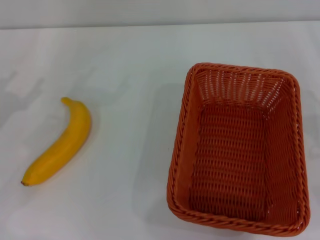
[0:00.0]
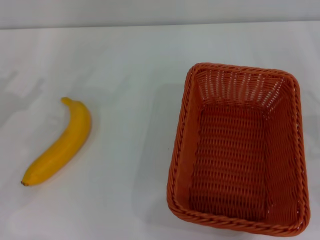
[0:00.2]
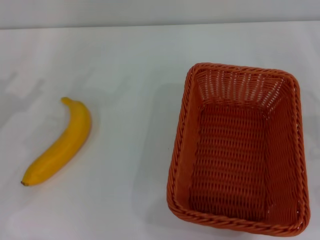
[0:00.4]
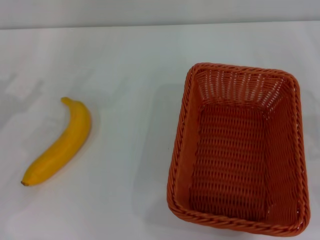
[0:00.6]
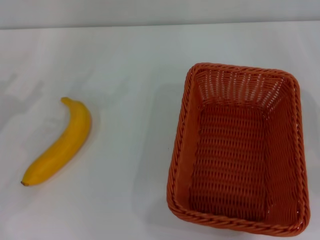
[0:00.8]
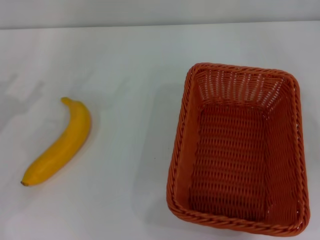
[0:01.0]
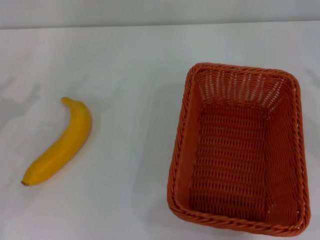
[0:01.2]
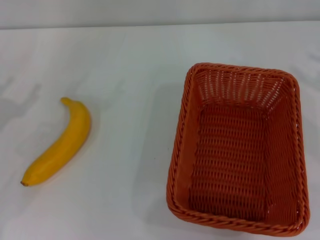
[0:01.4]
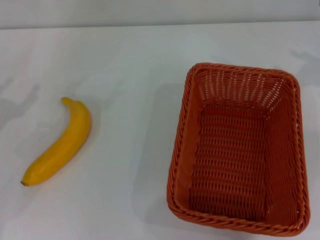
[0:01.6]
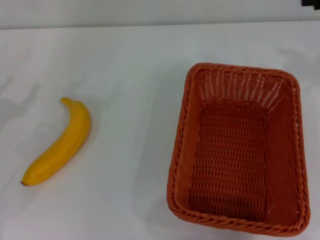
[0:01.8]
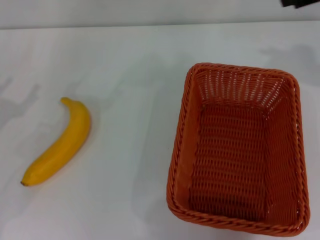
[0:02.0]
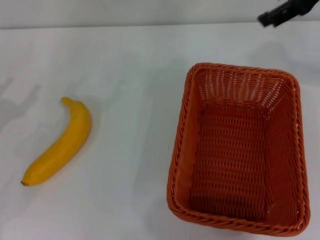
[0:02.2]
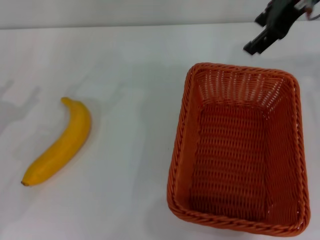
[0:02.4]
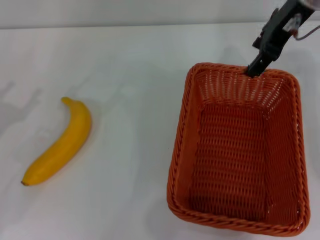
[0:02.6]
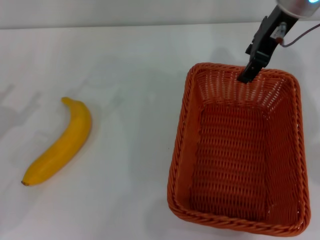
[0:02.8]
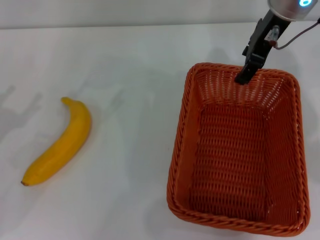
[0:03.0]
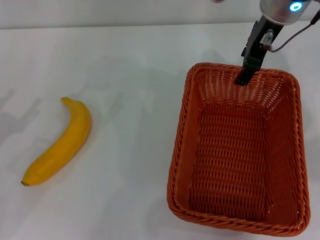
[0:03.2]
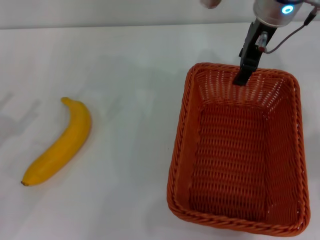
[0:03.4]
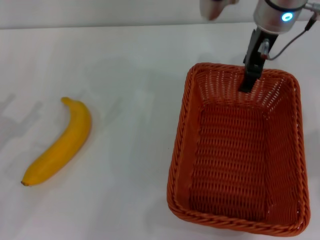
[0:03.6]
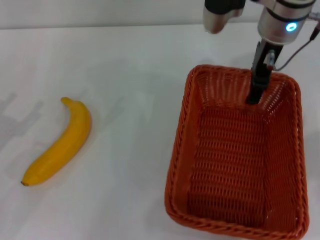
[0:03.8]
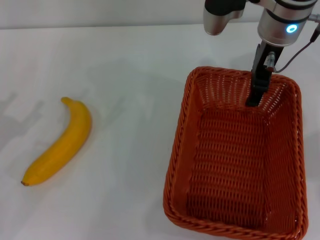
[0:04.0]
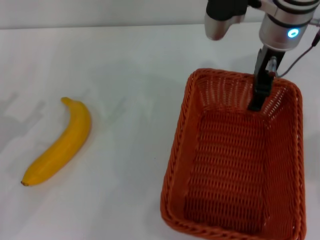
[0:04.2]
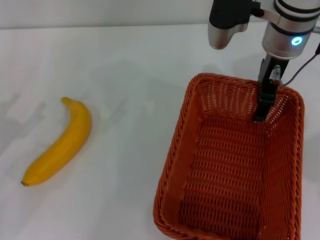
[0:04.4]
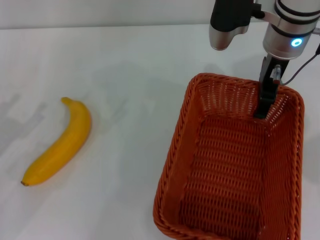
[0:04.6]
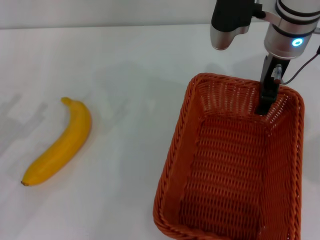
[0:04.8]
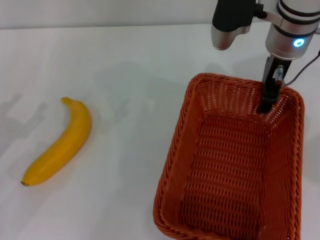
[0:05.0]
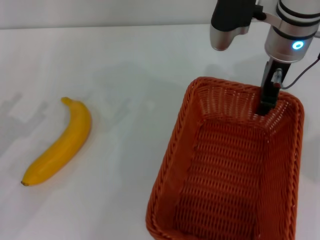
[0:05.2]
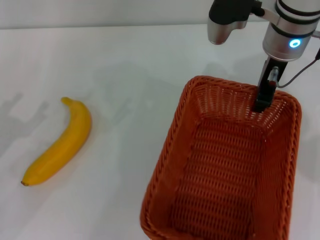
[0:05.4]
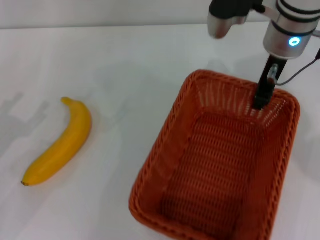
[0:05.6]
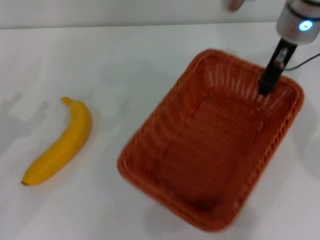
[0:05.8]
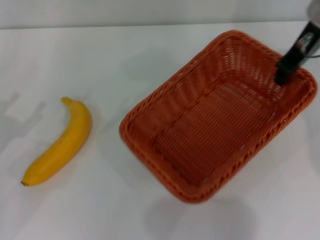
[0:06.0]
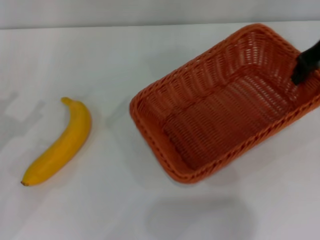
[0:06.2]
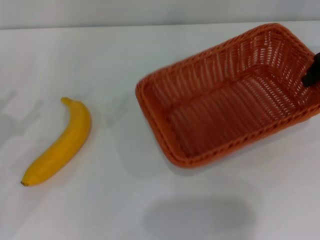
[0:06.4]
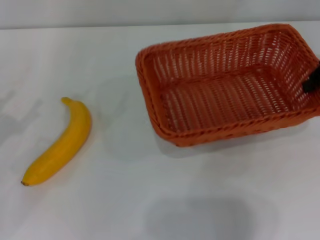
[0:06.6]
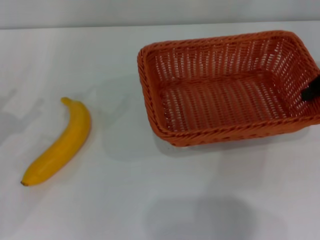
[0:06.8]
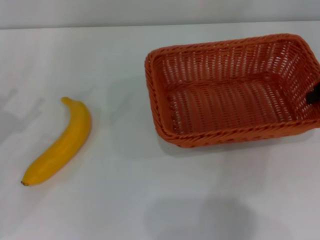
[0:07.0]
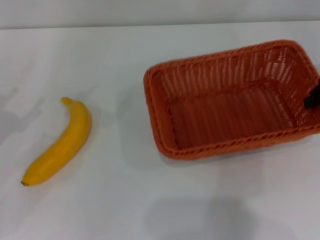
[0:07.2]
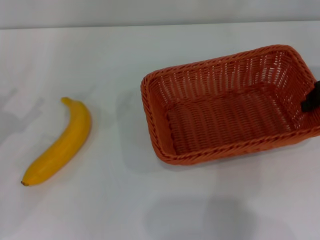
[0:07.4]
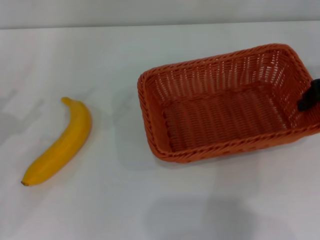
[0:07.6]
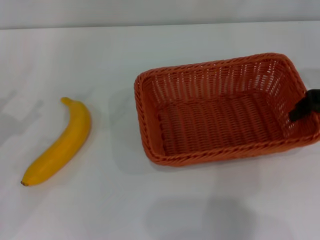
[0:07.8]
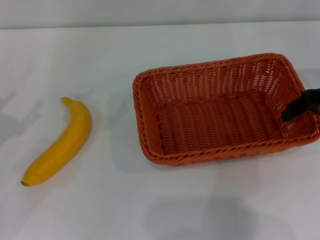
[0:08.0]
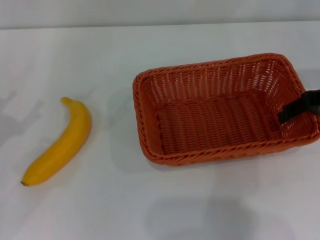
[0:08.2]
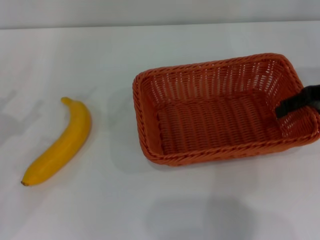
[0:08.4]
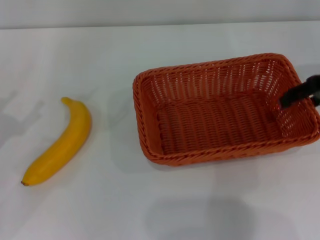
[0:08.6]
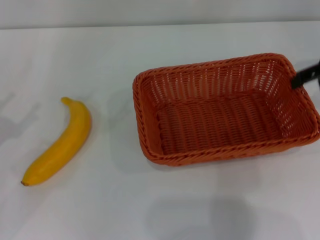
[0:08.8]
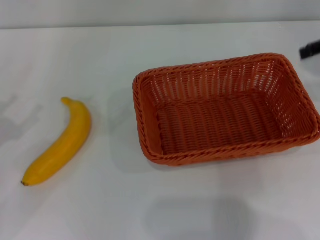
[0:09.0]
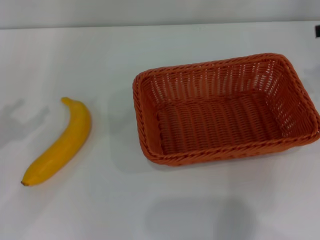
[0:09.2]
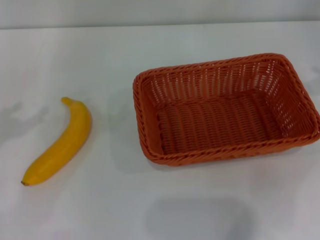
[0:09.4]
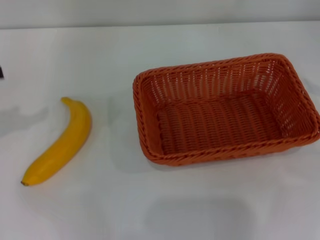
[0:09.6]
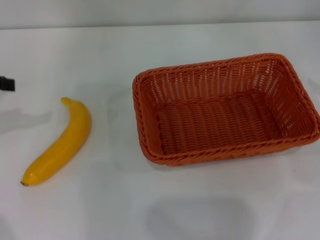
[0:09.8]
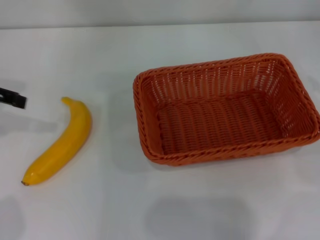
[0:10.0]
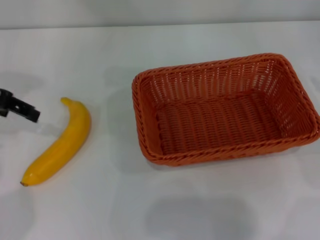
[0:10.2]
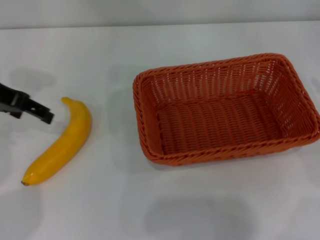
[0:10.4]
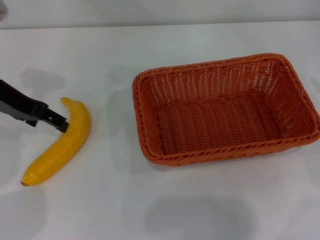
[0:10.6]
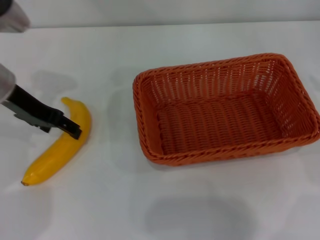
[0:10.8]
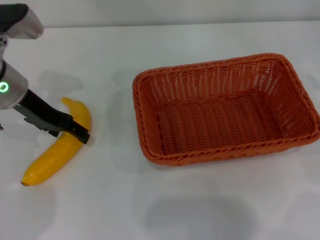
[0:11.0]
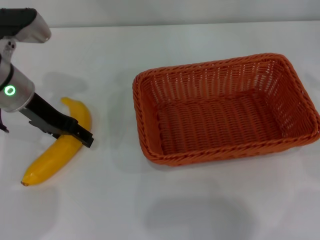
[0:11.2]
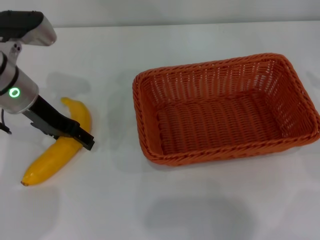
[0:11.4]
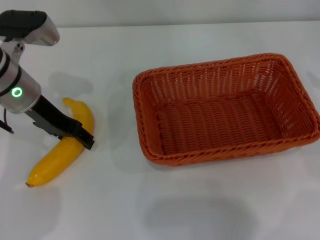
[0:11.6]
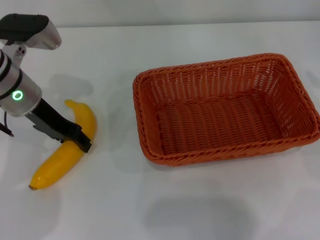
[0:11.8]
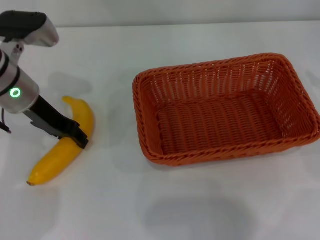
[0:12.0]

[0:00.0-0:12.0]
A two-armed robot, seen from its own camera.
Step, 0:00.0 to 0:05.6: Pick up the light basket with the right gripper.
Step, 0:05.8 to 0:08.8: Place the light basket in the center of view with the right gripper.
0:01.6 to 0:03.0: The right gripper moves to the left, approximately 20 cm.
0:03.0 to 0:04.4: The grippers make only small movements.
0:04.4 to 0:06.0: The right gripper moves to the right, roughly 5 cm, and closes its fingers.
0:06.0 to 0:07.6: The right gripper shifts some 10 cm to the right and backward.
0:07.6 to 0:09.0: The right gripper heads upward, covering about 5 cm, and opens its fingers.
0:09.0 to 0:10.4: The left gripper is displaced forward, to the right and upward by roughly 20 cm; the right gripper moves to the right and backward, some 10 cm.
0:10.4 to 0:12.0: The left gripper moves to the right and downward, approximately 10 cm, and closes its fingers.

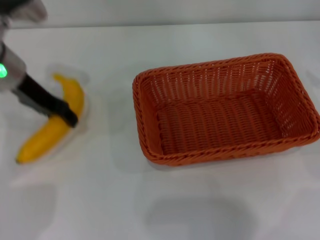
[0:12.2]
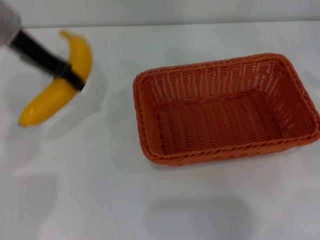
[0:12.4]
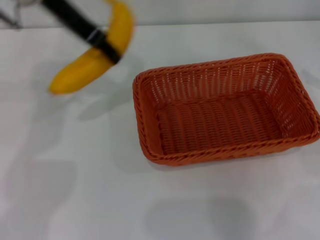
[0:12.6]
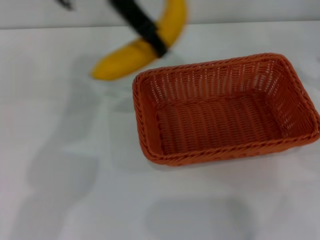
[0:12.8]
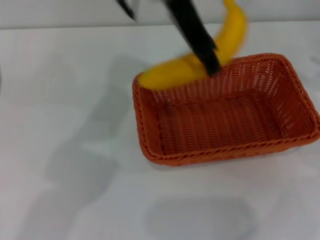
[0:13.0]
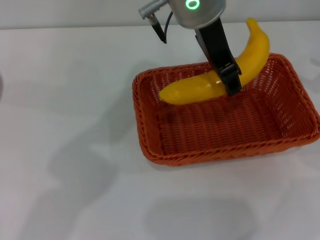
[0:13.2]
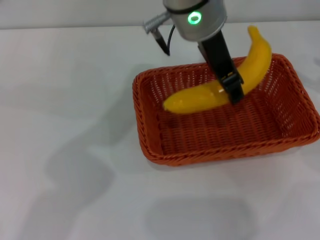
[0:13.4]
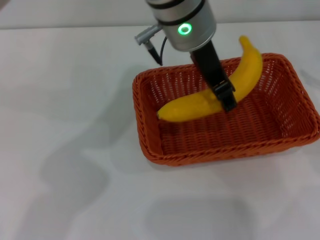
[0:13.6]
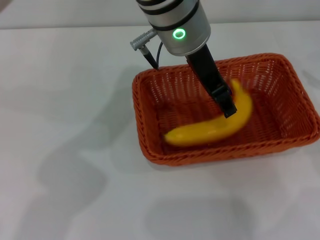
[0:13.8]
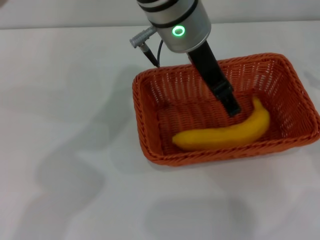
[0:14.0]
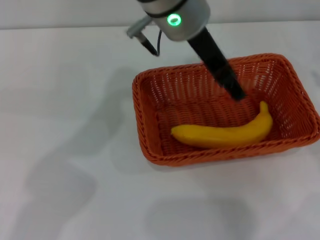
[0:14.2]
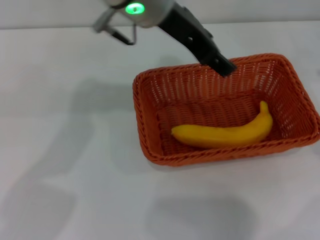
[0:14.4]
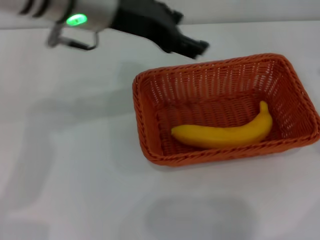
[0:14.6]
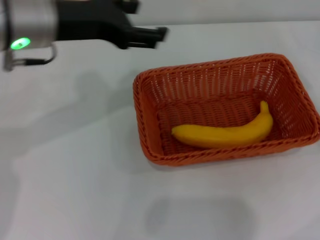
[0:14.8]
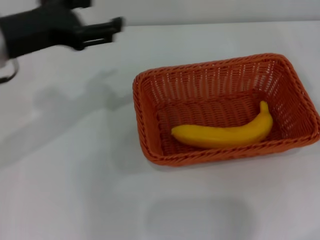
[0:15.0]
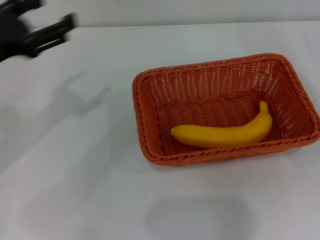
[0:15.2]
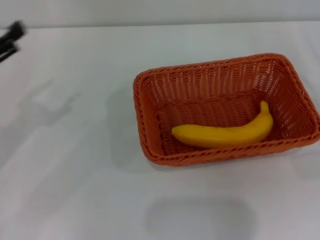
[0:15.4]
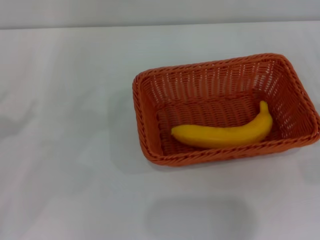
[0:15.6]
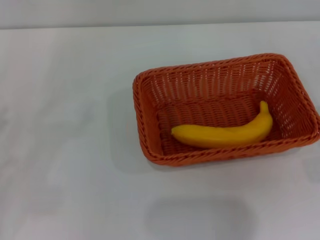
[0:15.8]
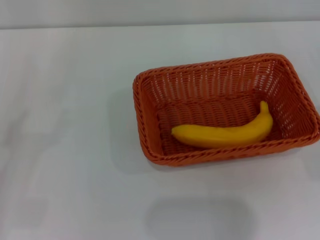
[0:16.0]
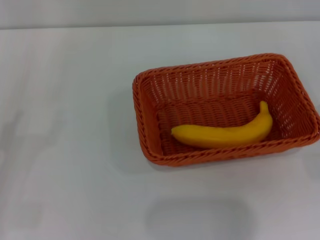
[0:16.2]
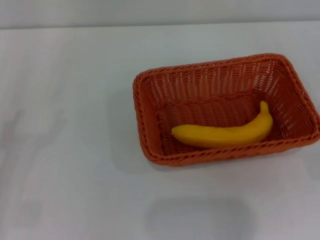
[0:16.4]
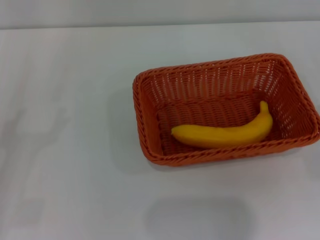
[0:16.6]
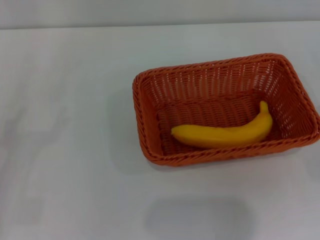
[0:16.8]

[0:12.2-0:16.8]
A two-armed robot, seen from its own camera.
Step, 0:12.4 to 0:13.8: Place the banana into the light basket with the left gripper.
0:12.2 to 0:13.8: The left gripper shifts about 25 cm to the right.
0:13.8 to 0:15.2: The left gripper travels to the left by some 30 cm, and opens. Meanwhile the right gripper goes some 10 cm downward.
0:15.2 to 0:16.8: The left gripper is displaced downward, to the left and backward by approximately 20 cm.

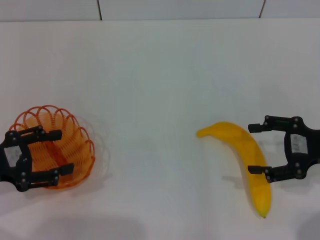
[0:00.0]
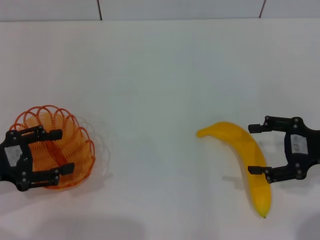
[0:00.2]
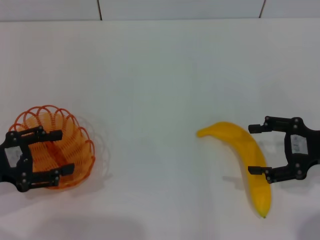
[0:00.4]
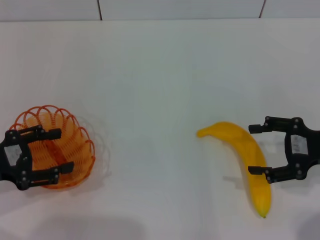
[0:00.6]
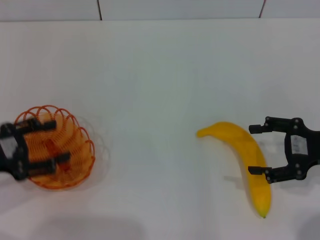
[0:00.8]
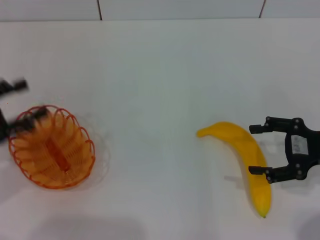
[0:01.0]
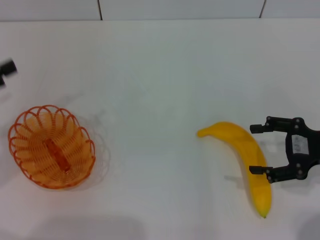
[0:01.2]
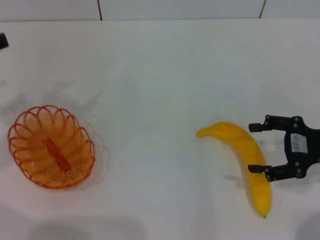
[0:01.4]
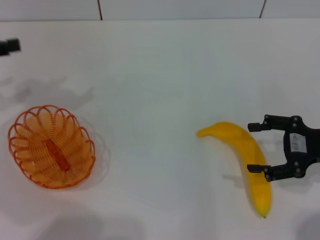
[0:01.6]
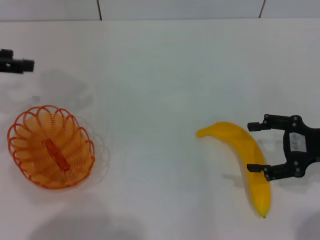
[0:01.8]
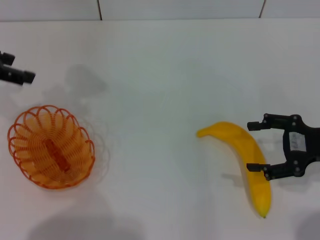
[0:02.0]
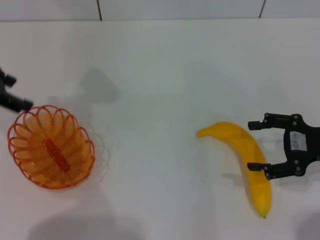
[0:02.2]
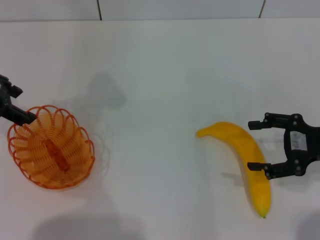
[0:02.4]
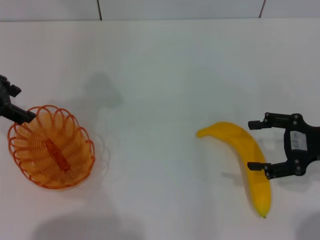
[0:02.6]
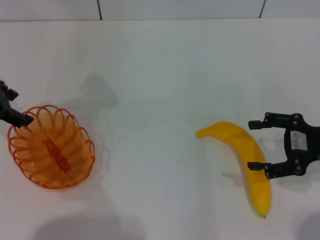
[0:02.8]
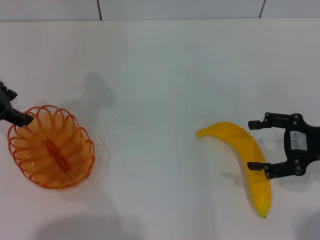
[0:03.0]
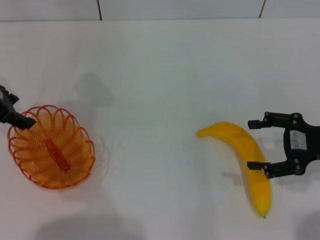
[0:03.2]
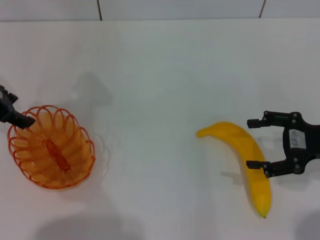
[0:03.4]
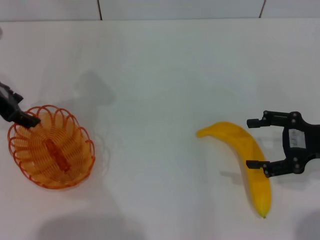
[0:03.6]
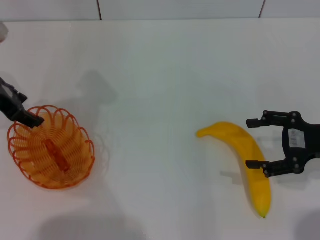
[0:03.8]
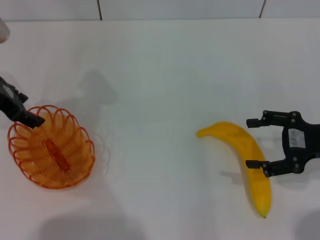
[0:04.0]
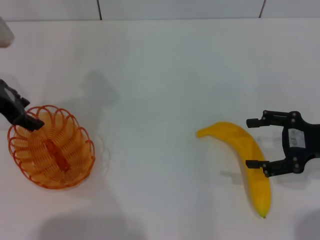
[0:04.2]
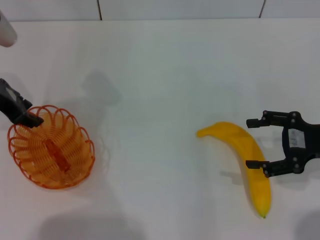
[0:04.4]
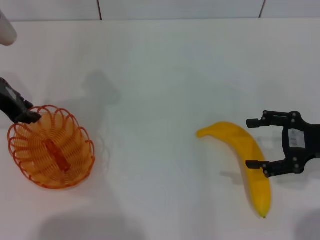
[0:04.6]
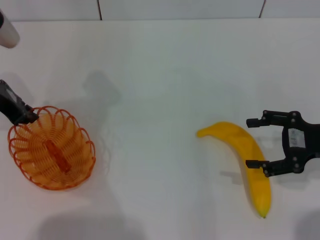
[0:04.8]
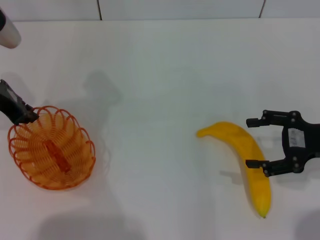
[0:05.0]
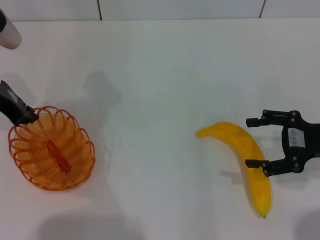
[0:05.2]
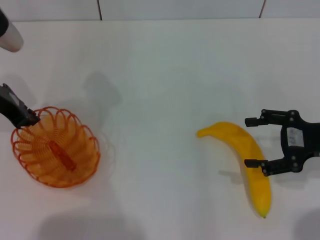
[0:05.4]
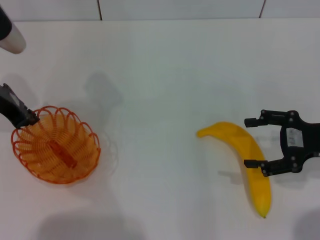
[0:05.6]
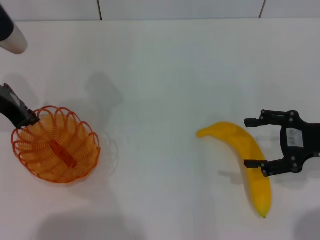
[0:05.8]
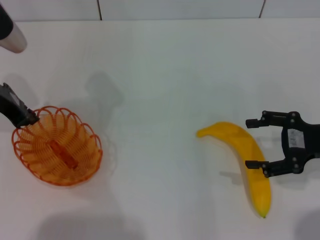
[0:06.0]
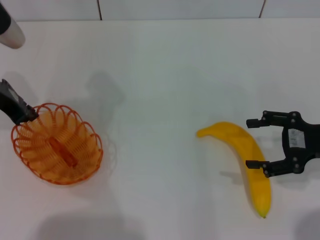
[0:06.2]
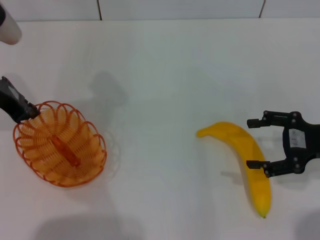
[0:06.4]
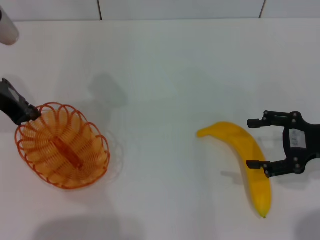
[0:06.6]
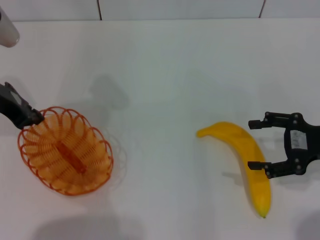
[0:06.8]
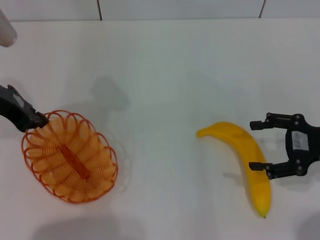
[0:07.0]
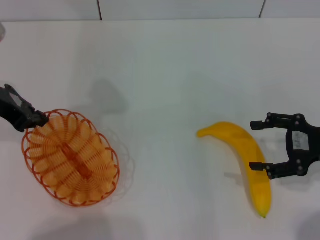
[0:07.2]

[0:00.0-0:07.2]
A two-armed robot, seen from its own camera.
0:00.0 to 0:01.4: The left gripper heads upward and forward, covering approximately 10 cm.
0:01.4 to 0:02.8: The left gripper shifts roughly 10 cm to the right and forward.
0:02.8 to 0:04.4: The grippers stay close to where they were, moving slightly.
0:04.4 to 0:05.8: The left gripper closes.
0:05.8 to 0:07.2: The grippers stay close to where they were, moving slightly.
